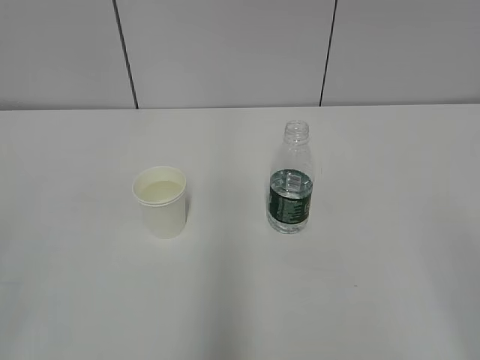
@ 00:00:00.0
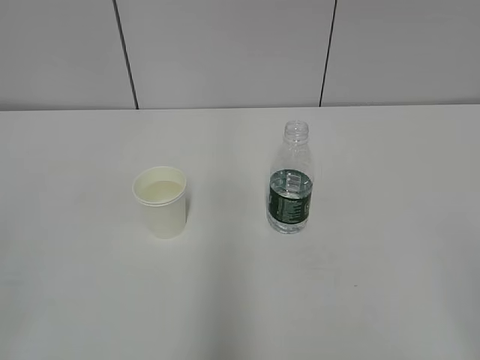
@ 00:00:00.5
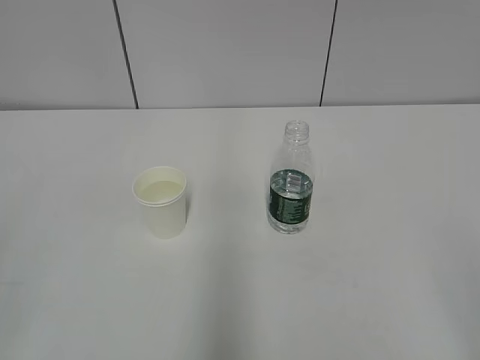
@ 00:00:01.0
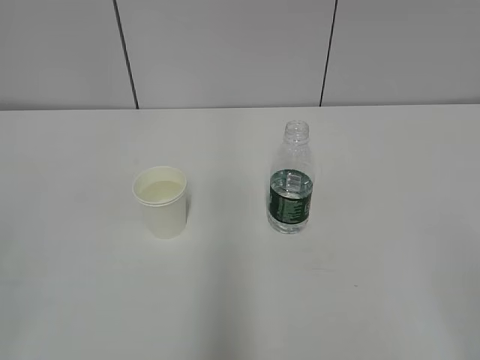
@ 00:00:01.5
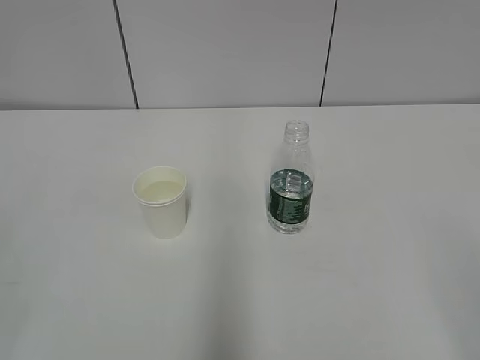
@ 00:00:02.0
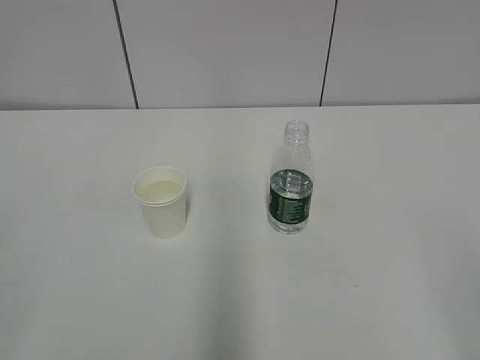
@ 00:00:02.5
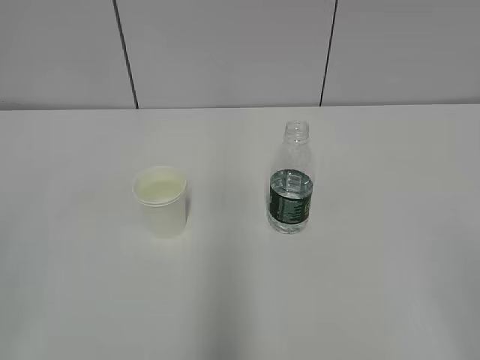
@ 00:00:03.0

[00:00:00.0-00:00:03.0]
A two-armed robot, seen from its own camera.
00:00:01.5 to 00:00:03.0: Neither gripper changes place.
